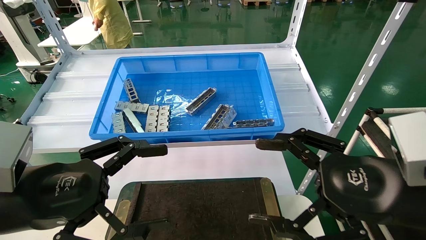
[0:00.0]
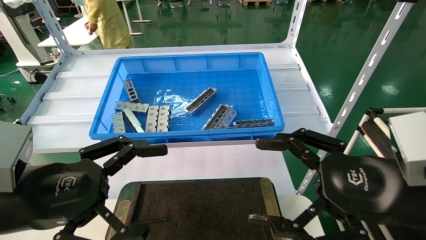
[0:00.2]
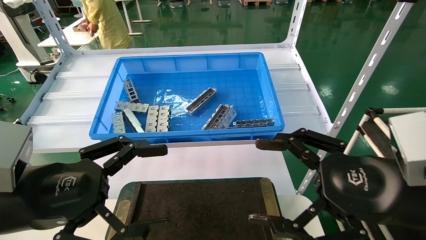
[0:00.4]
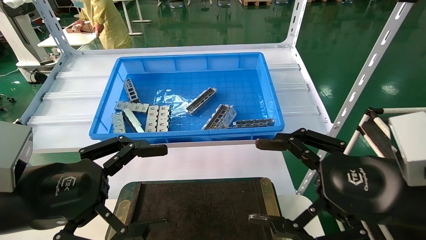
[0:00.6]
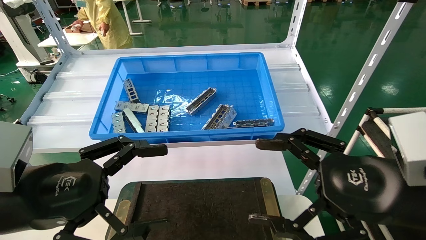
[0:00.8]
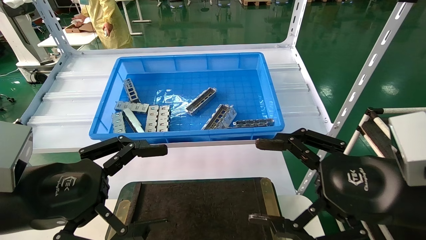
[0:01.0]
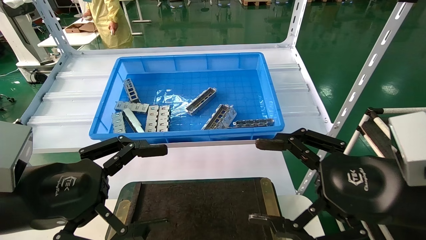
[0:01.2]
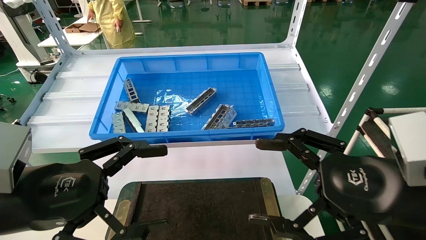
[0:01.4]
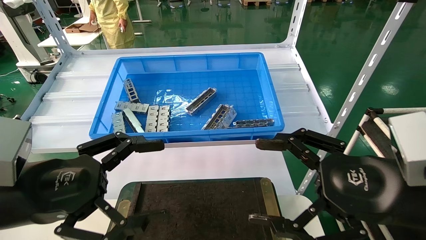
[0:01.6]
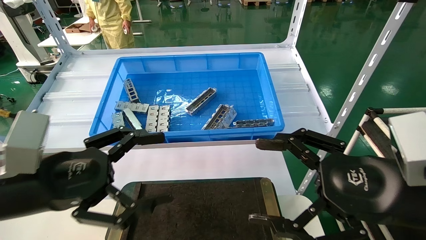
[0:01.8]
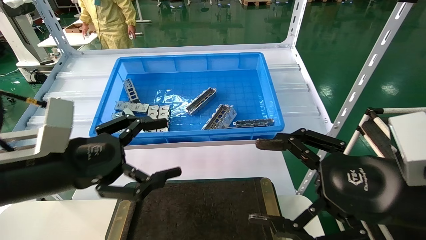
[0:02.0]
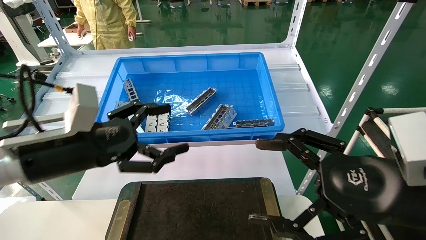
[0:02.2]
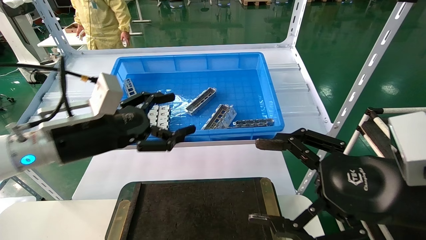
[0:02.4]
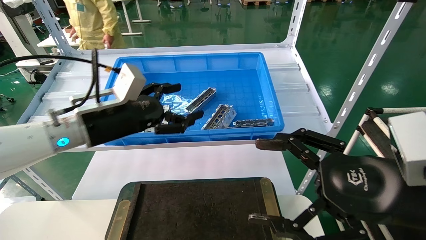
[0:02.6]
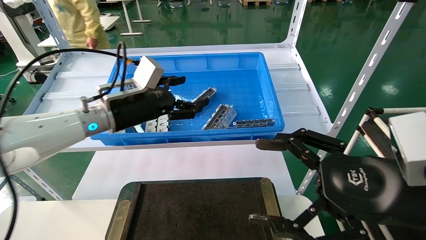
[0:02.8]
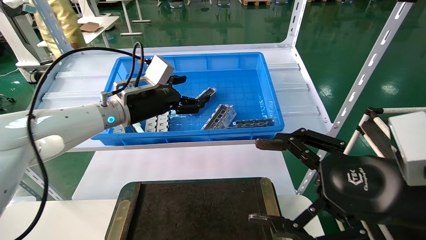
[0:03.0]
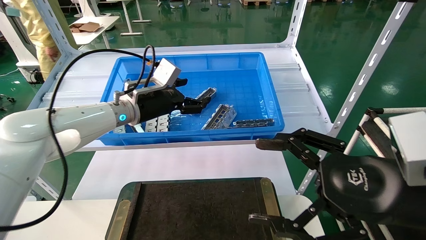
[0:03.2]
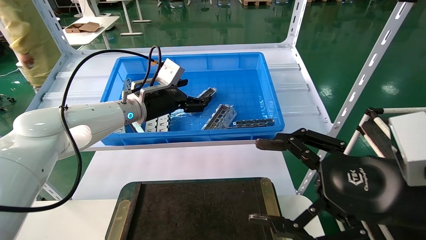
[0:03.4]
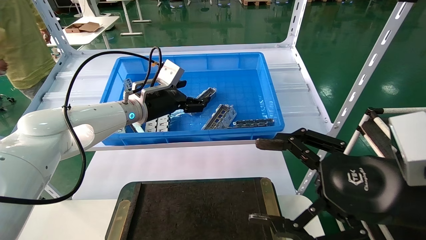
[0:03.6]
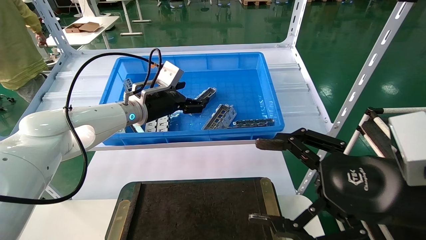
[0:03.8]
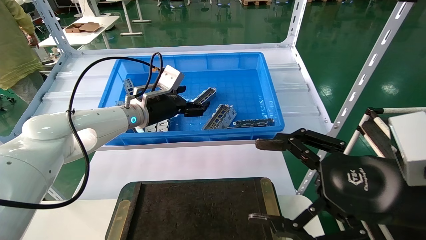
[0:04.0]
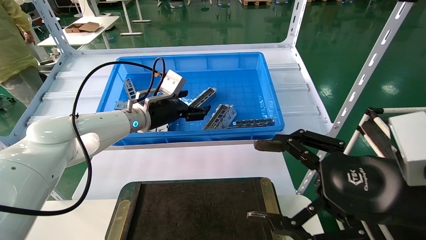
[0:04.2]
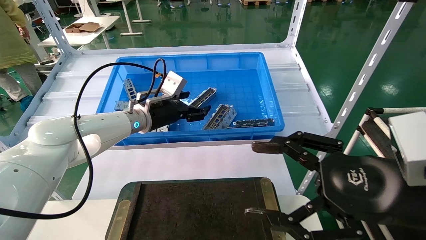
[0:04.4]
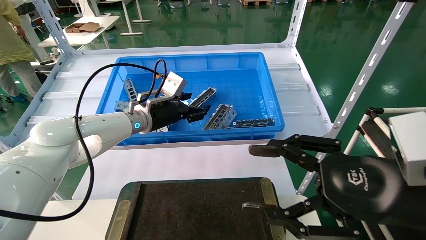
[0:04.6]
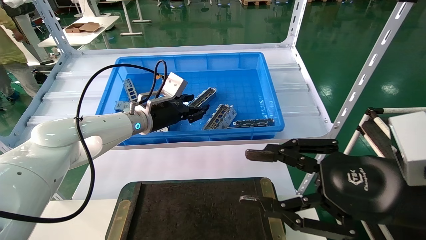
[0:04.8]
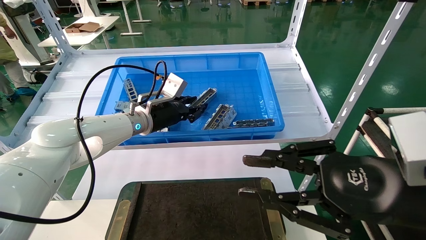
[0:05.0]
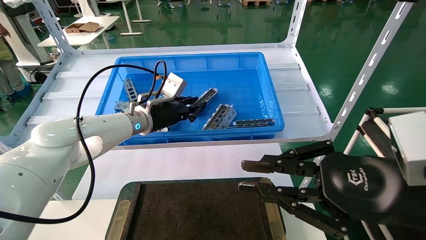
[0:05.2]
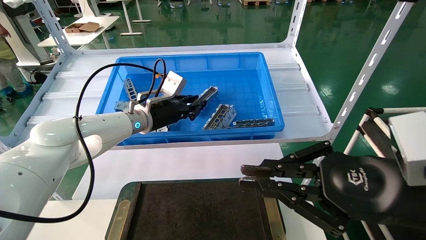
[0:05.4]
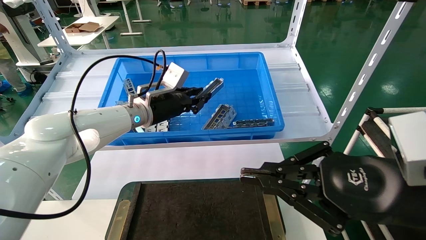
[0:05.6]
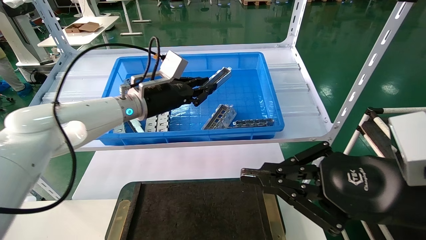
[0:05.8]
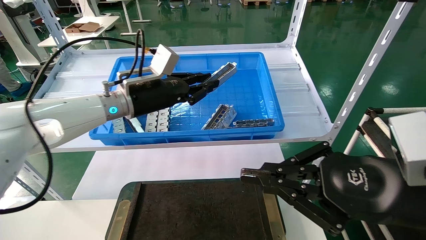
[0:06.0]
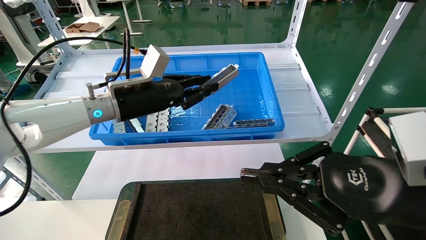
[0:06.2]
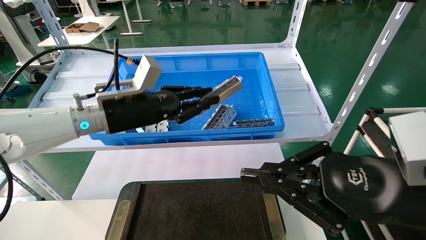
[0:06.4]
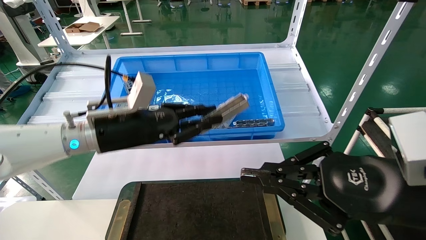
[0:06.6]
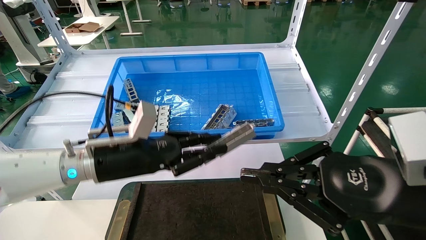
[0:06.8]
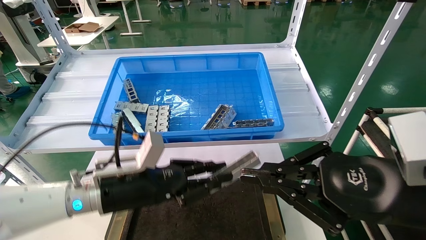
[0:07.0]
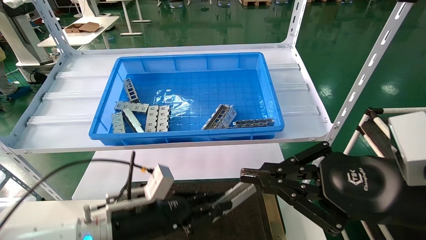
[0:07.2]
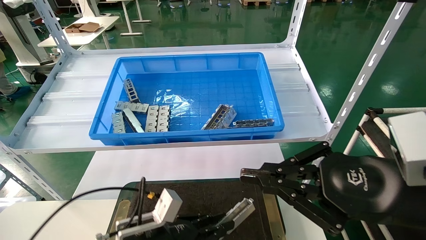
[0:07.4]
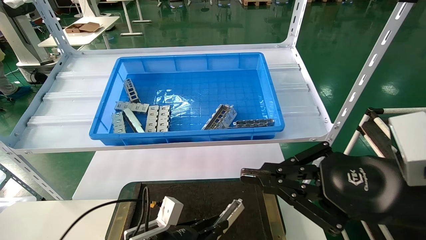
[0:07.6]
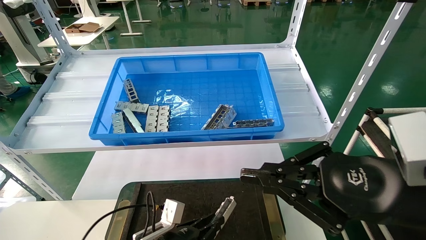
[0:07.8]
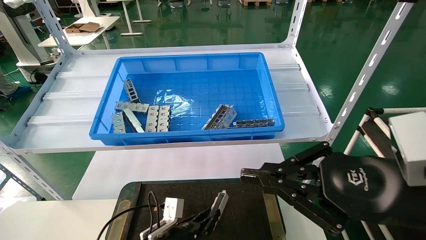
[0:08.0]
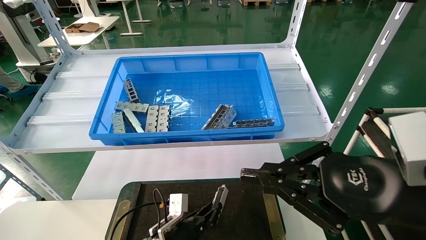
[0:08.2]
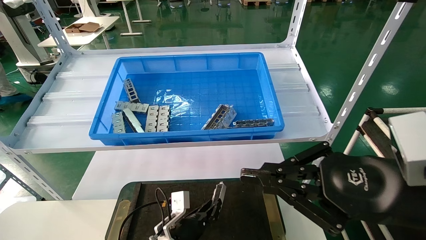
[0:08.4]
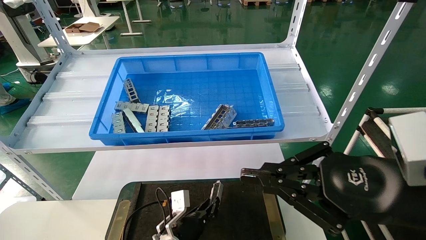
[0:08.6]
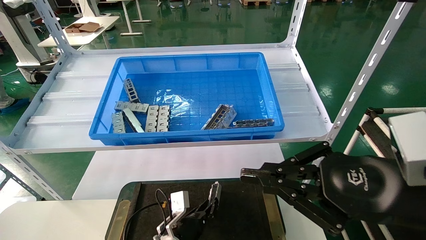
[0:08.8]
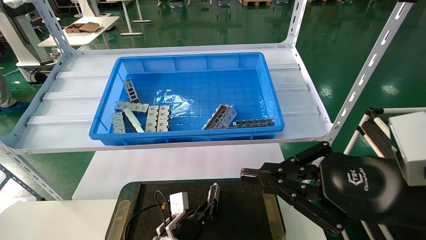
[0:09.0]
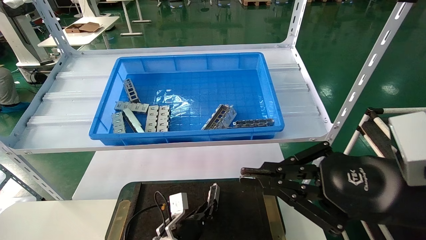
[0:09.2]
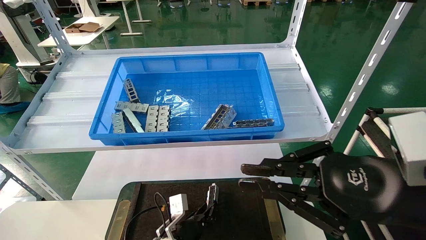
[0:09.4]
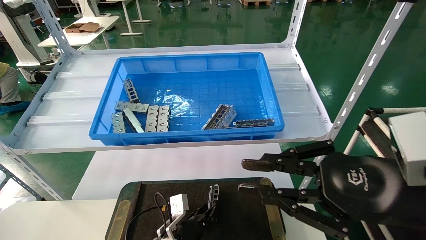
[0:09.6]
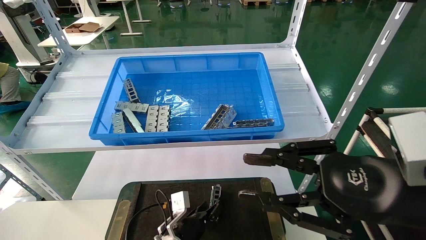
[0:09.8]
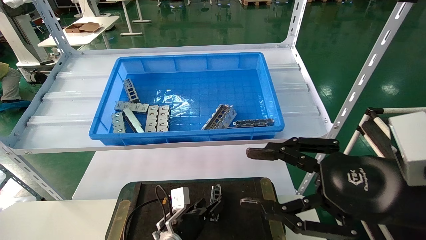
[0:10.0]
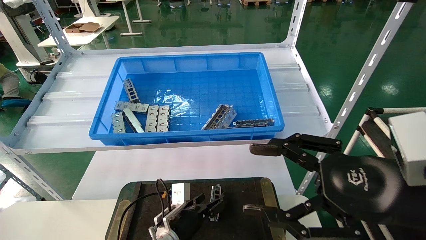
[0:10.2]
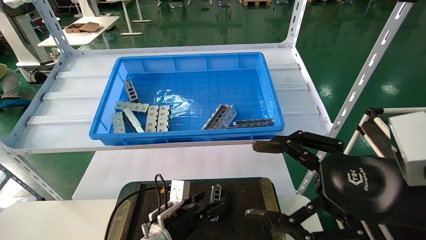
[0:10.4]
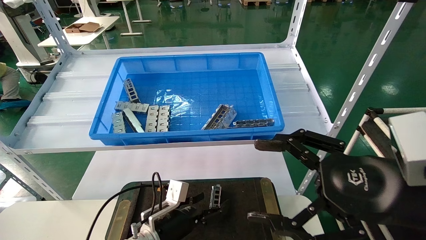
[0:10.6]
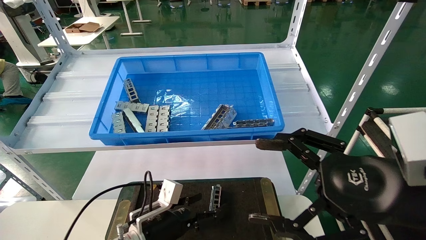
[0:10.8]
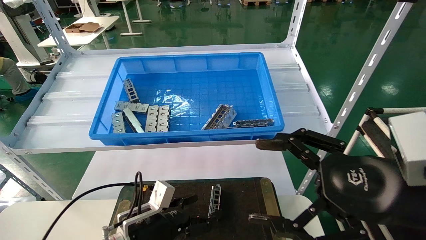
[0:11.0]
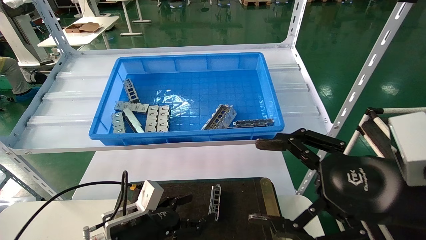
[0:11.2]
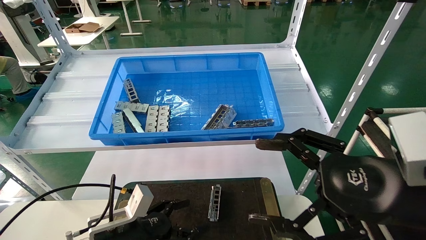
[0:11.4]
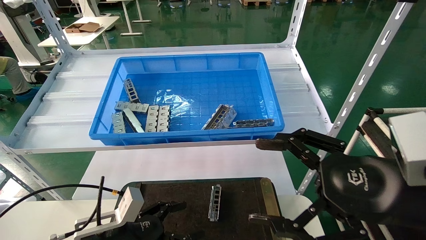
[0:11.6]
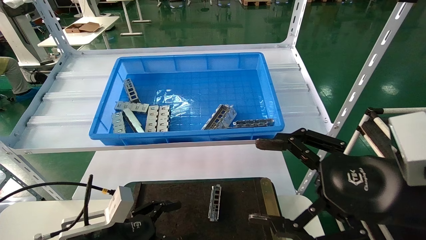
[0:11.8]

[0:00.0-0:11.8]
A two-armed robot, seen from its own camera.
Task of the whole recording: Grasp the part with one hand and place it on the black container.
Step, 0:02.0 to 0:06.2: Pick up the front USB bracket from the feeding area.
Step, 0:06.4 to 0:09.8: Place the front USB bracket into the box.
0:00.0 to 0:01.4: Neither gripper changes place.
0:01.4 to 0:03.0: The left gripper goes some 25 cm forward.
0:03.0 to 0:04.4: The left gripper shifts by approximately 5 cm.
0:04.4 to 0:06.0: The right gripper closes; the left gripper moves backward, about 5 cm, and closes up.
0:06.0 to 0:07.4: The left gripper moves downward and backward, about 30 cm.
0:07.4 to 0:08.8: The left gripper goes roughly 15 cm downward, forward and to the right.
0:08.8 to 0:10.4: The left gripper ends up roughly 5 cm from where it was, and opens its fingers. The right gripper opens its fingers.
0:10.4 to 0:11.8: The left gripper goes roughly 20 cm to the left, backward and upward.
